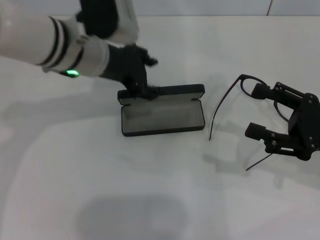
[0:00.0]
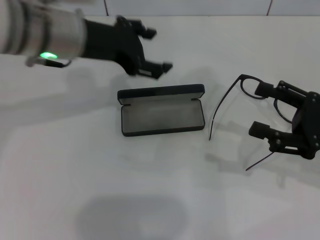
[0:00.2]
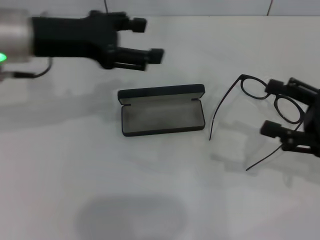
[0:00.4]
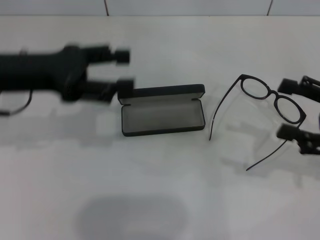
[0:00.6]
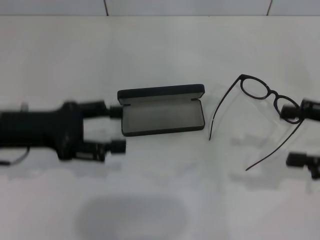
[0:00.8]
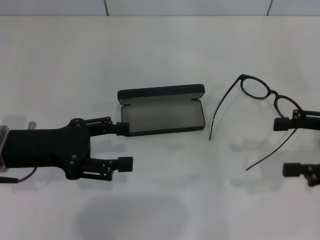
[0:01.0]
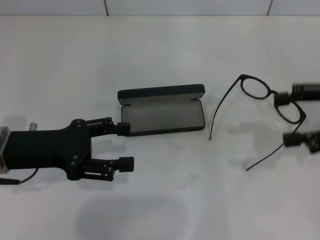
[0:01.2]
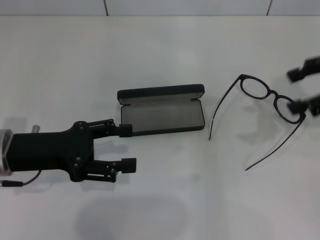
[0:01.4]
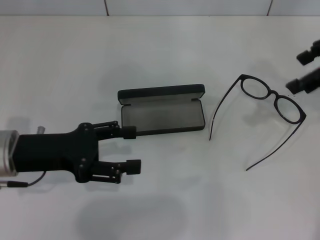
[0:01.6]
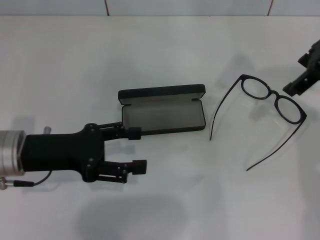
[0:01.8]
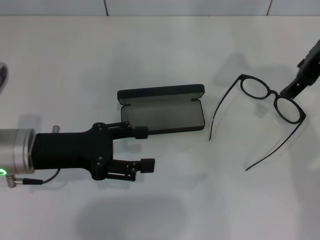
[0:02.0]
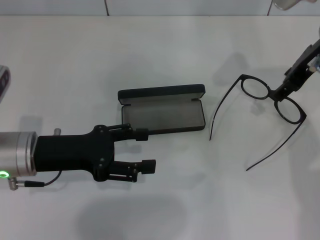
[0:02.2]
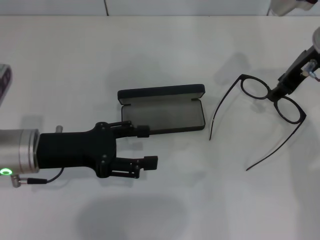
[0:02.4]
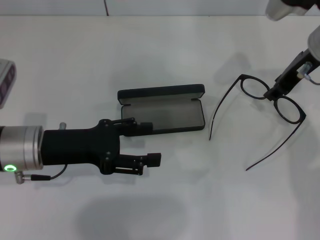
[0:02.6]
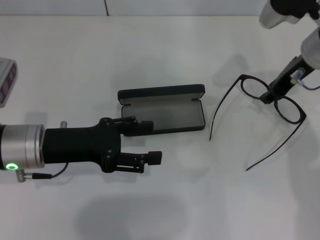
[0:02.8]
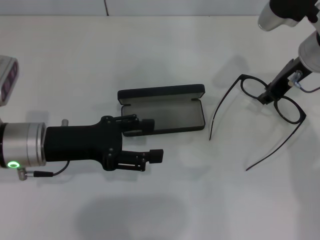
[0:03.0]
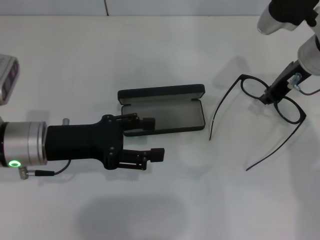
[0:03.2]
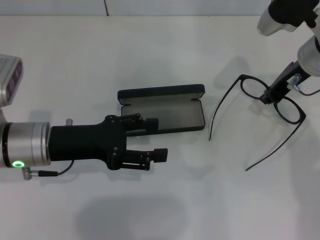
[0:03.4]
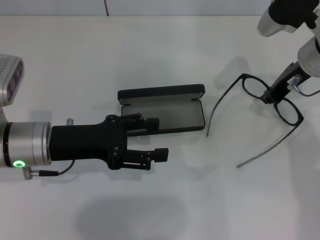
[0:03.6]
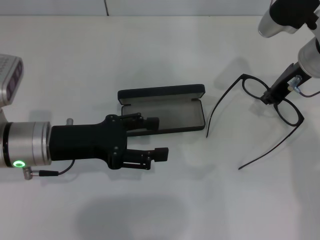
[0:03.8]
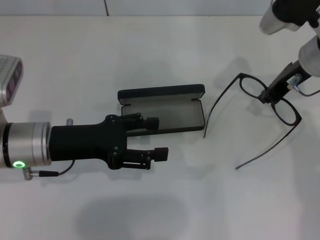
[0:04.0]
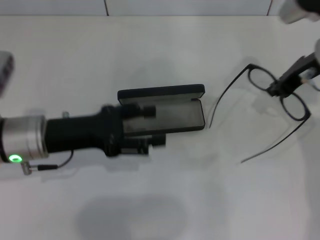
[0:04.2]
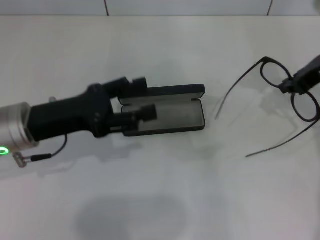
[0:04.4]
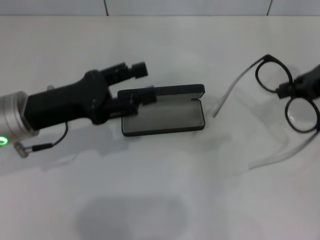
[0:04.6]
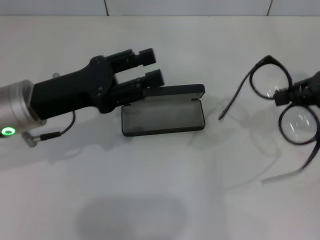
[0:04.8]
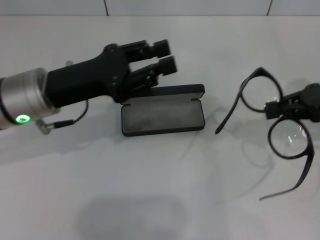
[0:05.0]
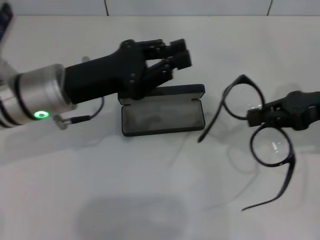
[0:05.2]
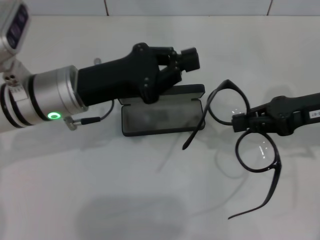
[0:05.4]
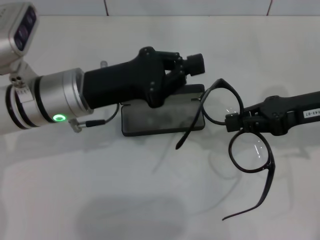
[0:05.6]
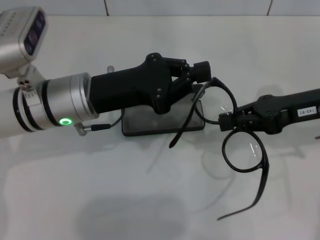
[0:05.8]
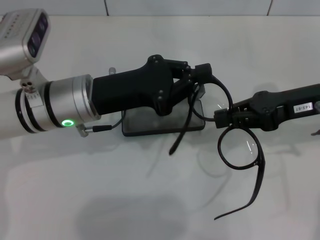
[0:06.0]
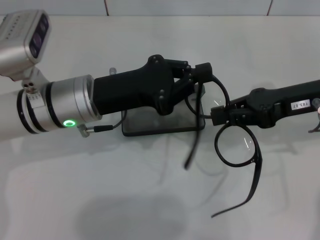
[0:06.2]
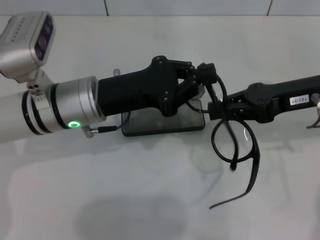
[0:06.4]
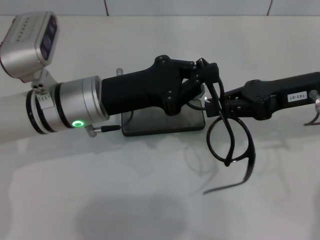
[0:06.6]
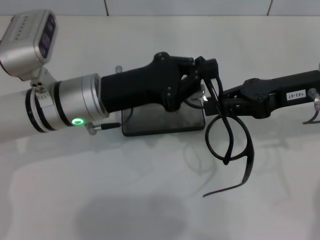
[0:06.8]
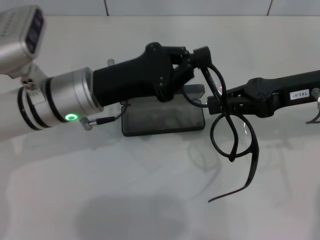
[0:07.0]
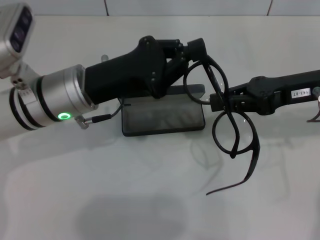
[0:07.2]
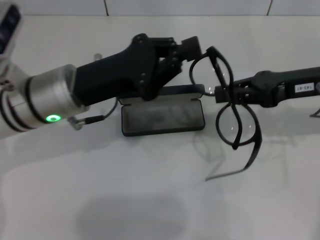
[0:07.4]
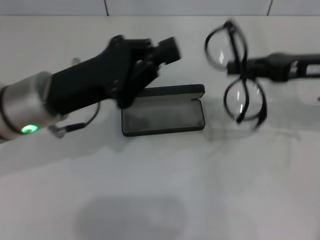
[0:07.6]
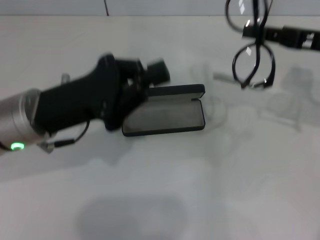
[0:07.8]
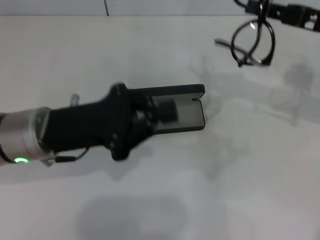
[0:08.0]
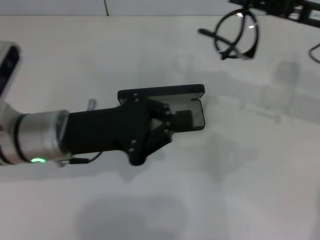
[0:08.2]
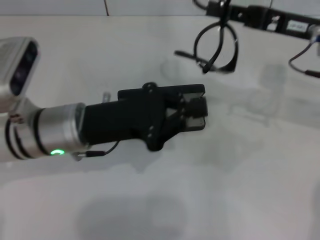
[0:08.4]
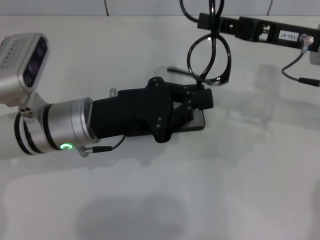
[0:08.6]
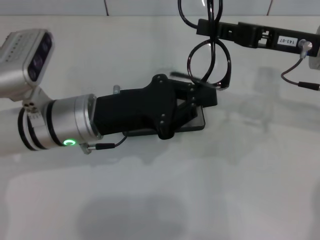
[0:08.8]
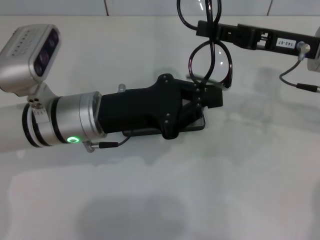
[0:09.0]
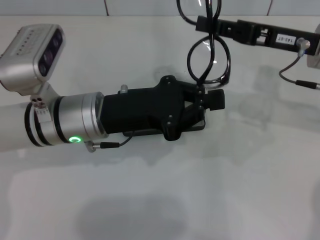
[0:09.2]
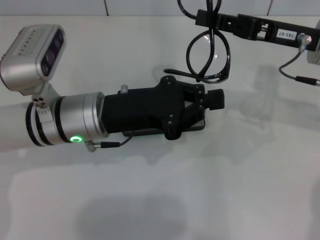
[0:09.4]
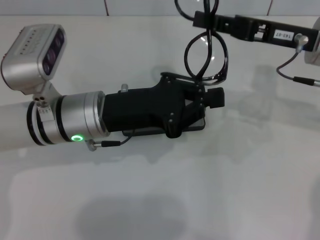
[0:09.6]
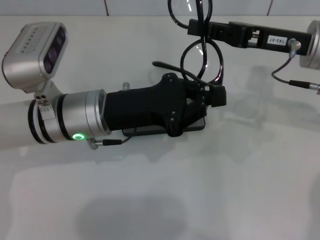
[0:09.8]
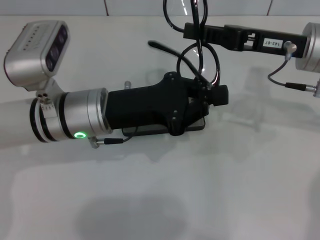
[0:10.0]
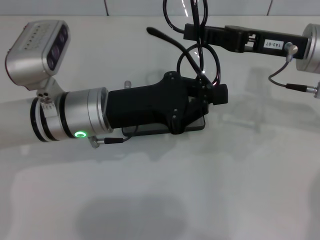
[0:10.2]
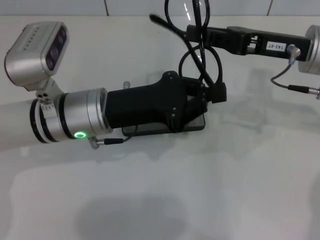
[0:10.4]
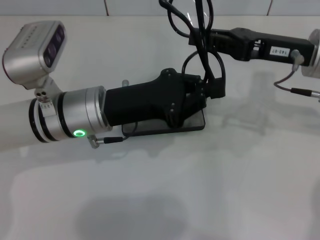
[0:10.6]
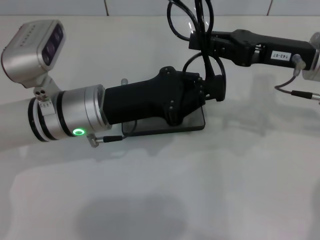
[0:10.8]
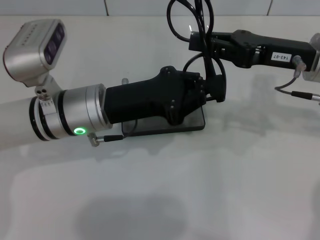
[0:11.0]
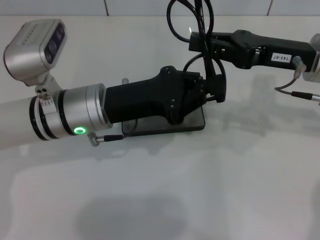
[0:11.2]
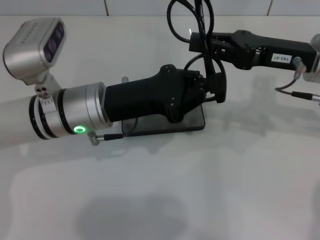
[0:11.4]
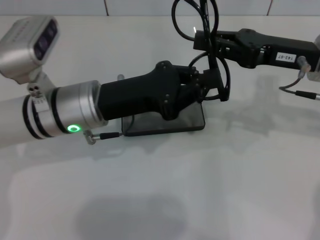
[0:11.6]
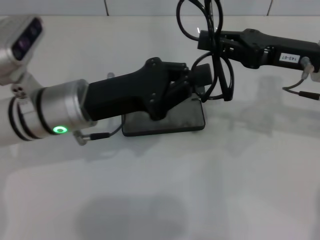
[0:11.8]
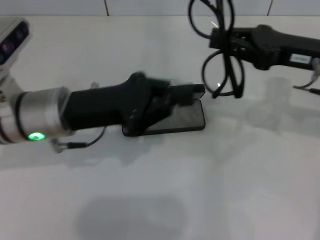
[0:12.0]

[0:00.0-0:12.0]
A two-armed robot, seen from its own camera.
Step, 0:00.0 to 0:03.6: Grab the eyeglass frame with your right hand.
Step, 0:03.8 to 0:11.2: Fold the frame with your left hand.
0:00.0 to 0:01.6: The left gripper shifts roughly 20 cm to the left, backward and downward, and opens its fingers. The right gripper shifts approximately 20 cm upward and forward.
0:01.6 to 0:03.0: The right gripper heads downward and to the left, covering approximately 15 cm, and closes.
0:03.0 to 0:04.4: The right gripper moves to the right, some 5 cm.
0:04.4 to 0:06.0: The left gripper travels to the right by approximately 5 cm, and closes up, while the right gripper travels backward by about 5 cm.
0:09.0 to 0:10.4: The grippers stay close to where they were, moving slightly.

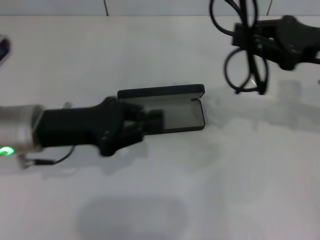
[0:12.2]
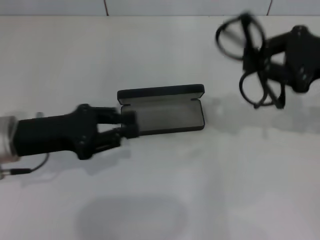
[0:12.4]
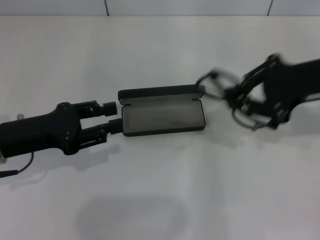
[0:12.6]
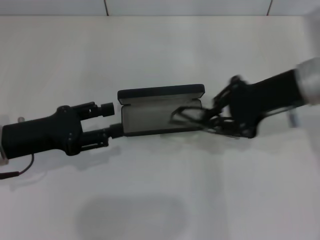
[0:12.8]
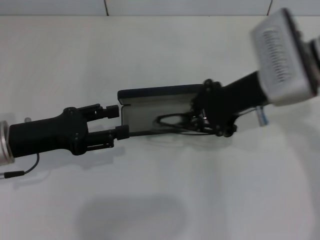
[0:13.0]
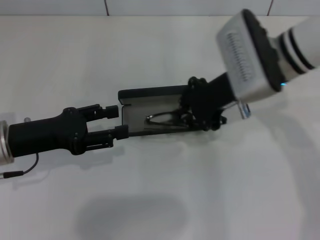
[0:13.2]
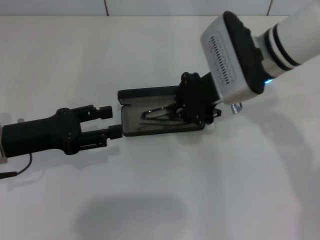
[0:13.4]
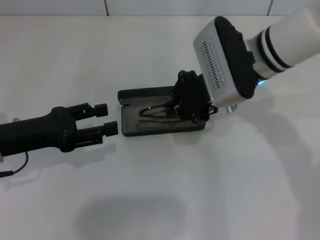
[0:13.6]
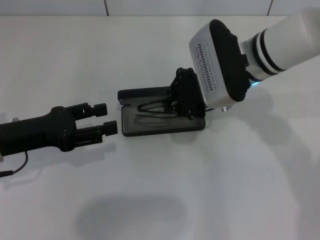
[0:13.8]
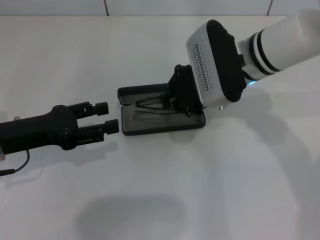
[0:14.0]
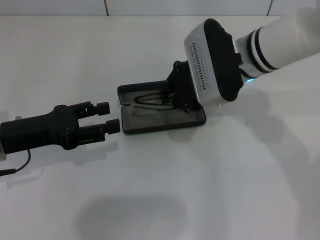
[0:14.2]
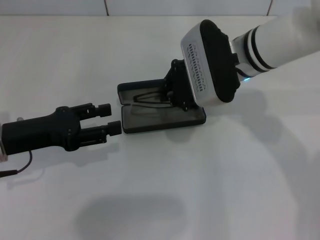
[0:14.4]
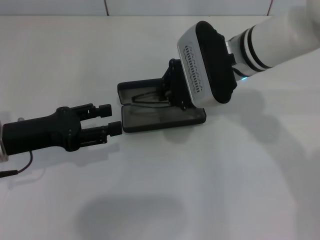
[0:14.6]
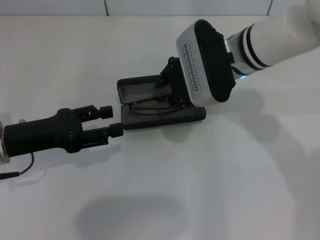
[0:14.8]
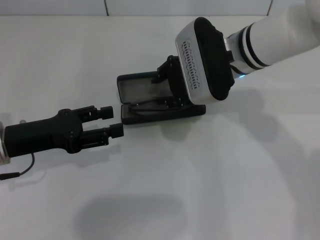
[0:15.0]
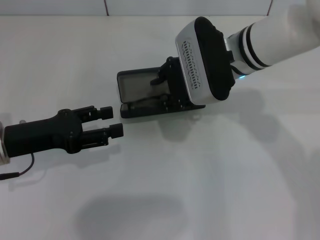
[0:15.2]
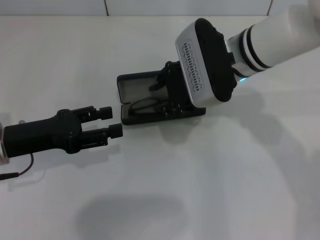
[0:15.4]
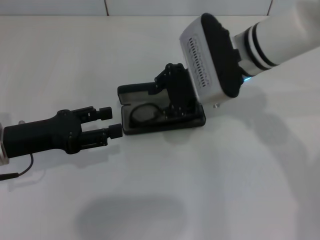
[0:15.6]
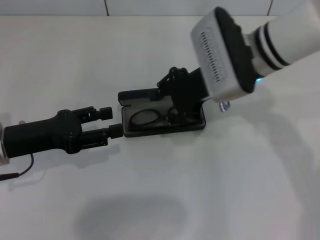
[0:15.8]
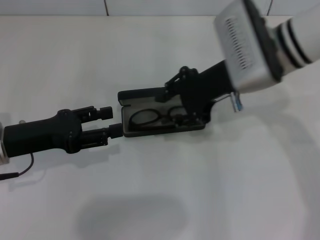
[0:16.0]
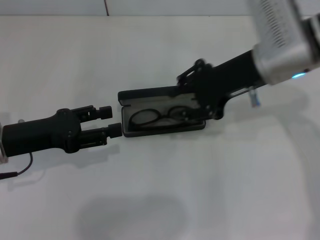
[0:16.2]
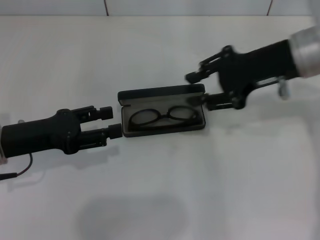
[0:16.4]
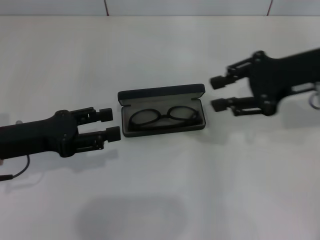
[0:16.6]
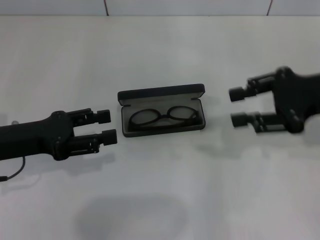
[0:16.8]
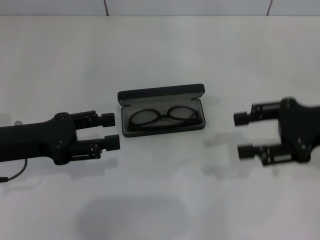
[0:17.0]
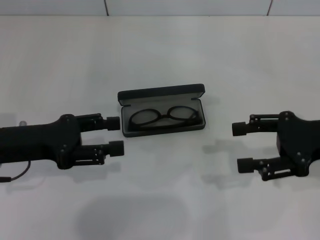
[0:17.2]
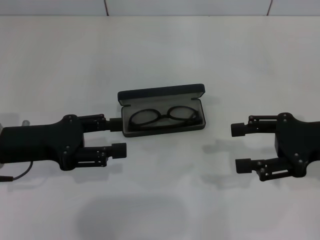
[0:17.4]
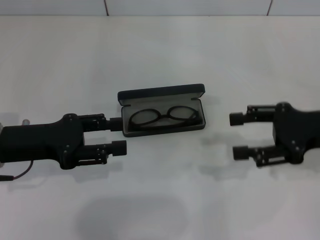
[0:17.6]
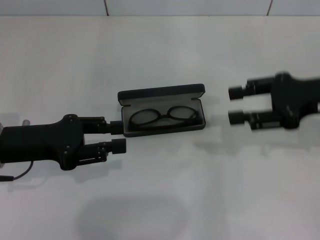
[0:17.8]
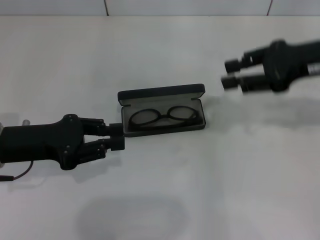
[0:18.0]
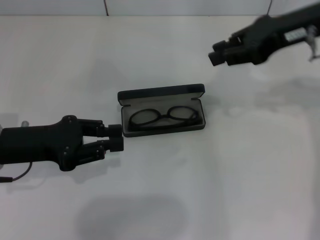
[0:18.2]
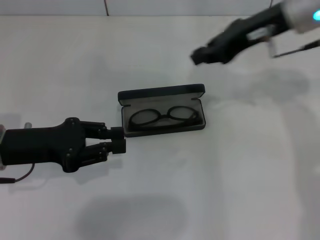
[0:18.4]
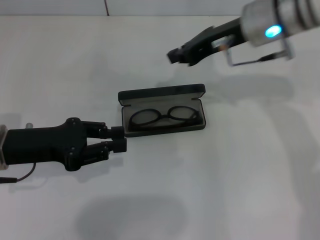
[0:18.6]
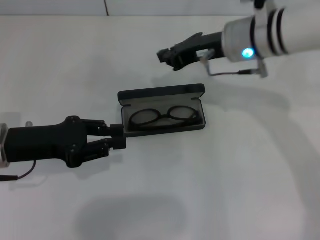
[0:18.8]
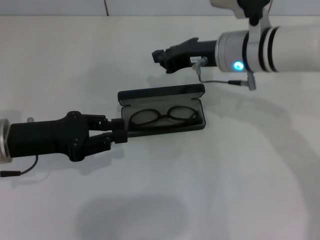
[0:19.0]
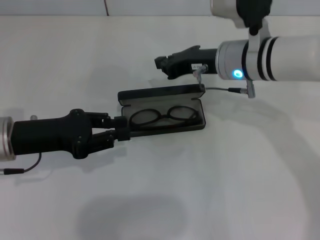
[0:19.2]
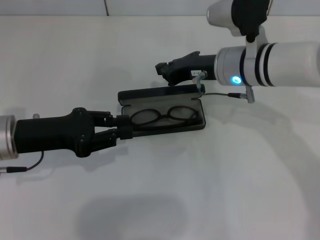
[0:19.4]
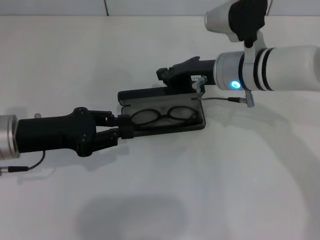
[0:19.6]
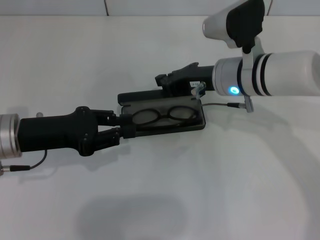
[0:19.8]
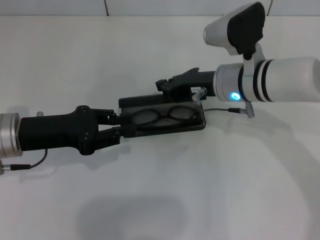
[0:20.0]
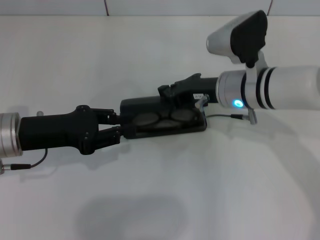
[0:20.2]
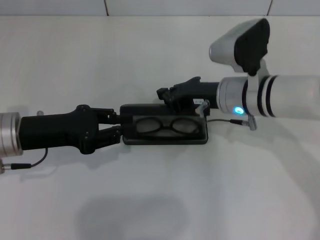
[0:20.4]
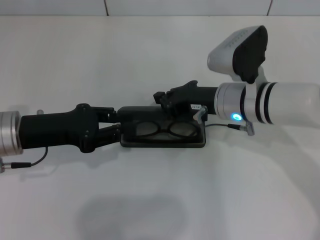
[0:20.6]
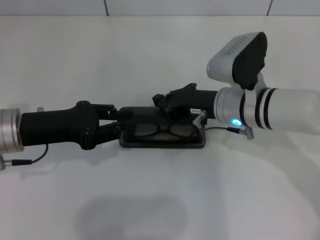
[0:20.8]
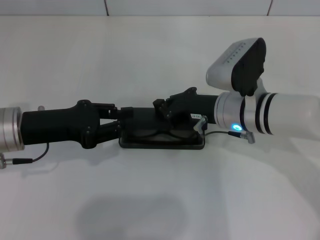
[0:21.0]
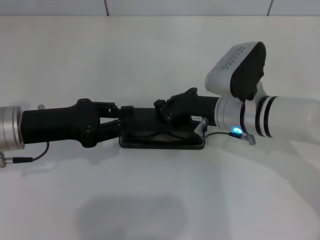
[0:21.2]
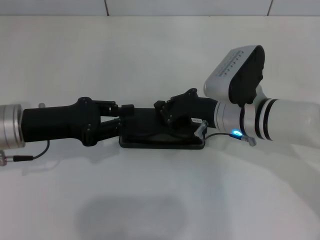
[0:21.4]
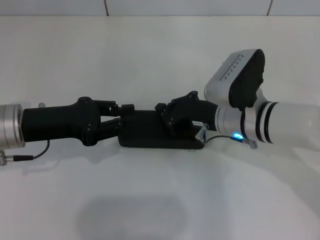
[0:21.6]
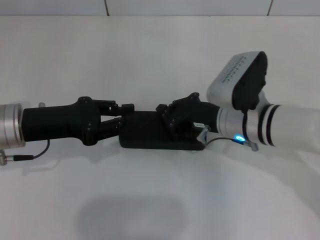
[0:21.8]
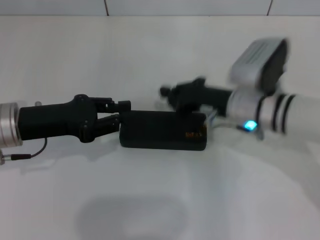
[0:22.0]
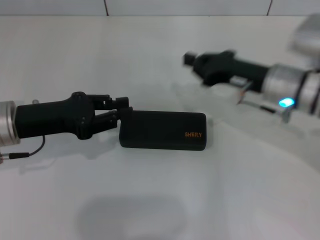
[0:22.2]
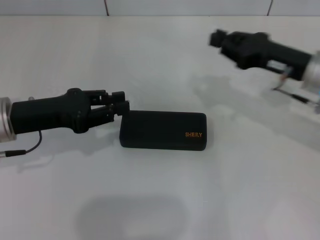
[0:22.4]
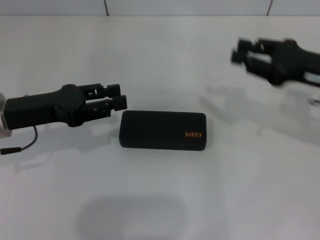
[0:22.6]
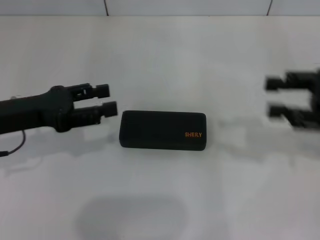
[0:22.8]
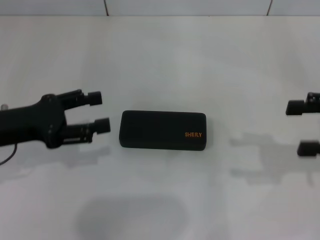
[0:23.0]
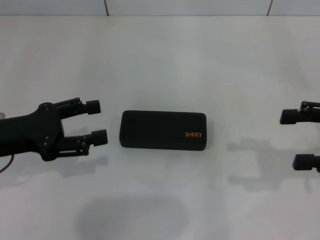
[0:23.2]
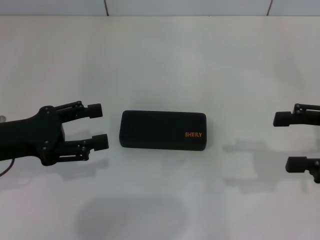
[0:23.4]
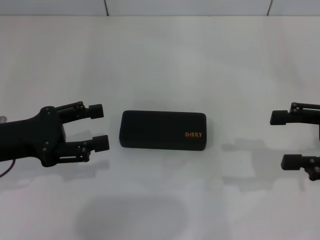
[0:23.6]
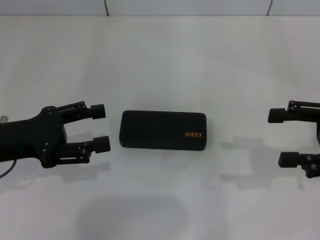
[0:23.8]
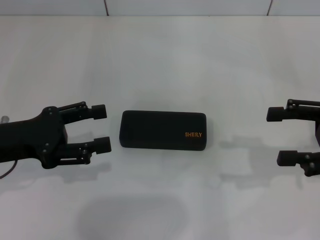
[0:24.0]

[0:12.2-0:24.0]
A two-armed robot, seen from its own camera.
Step, 0:12.2 to 0:15.6: Put the glasses into the case with your right hand.
0:12.2 to 0:13.6: The right gripper shifts some 15 cm to the left, while the left gripper moves to the left, approximately 5 cm, and opens its fingers.
0:13.6 to 0:15.2: The grippers stay close to where they were, moving slightly.
0:15.2 to 0:16.6: The right gripper goes approximately 15 cm to the right.
0:16.6 to 0:18.2: The right gripper travels upward by roughly 5 cm, and opens, then closes once more; the left gripper closes.
0:18.2 to 0:19.6: The right gripper shifts approximately 15 cm downward and to the left, and closes up.
0:19.6 to 0:21.0: The right gripper shifts by about 5 cm.
0:21.0 to 0:22.6: The right gripper goes some 15 cm to the right.
0:22.6 to 0:24.0: The left gripper opens its fingers, while the right gripper travels backward by roughly 5 cm, and opens its fingers.
